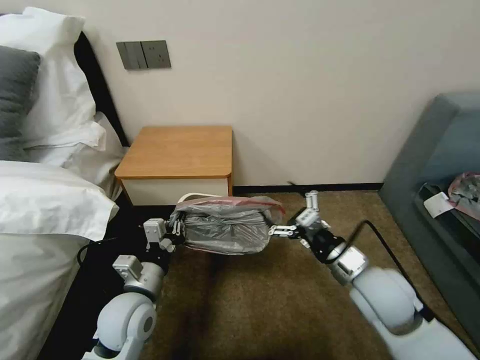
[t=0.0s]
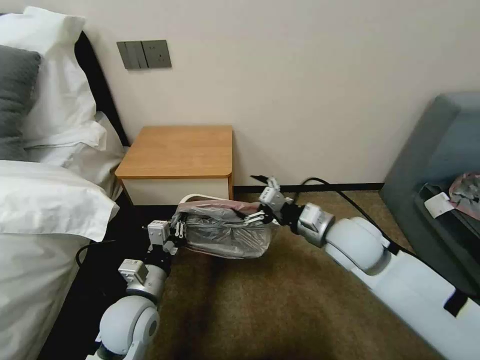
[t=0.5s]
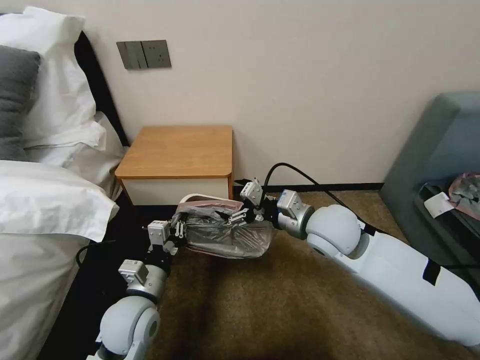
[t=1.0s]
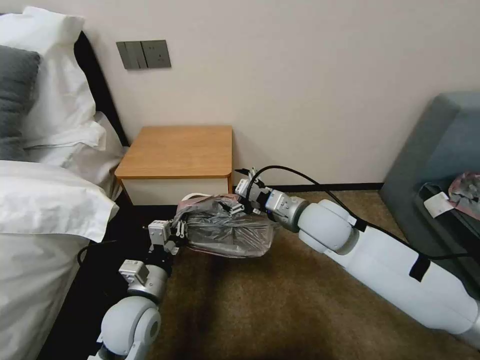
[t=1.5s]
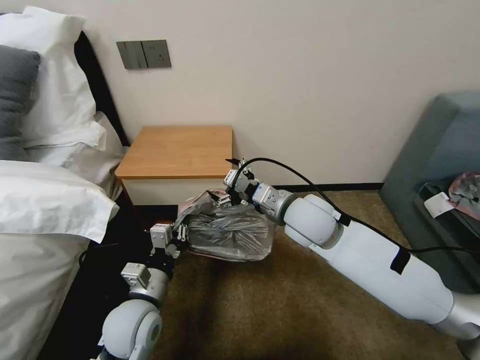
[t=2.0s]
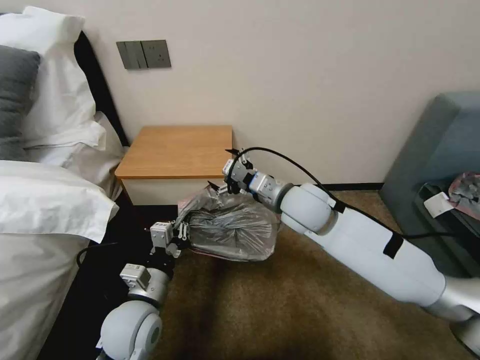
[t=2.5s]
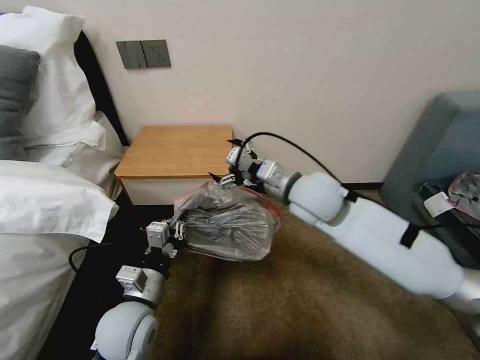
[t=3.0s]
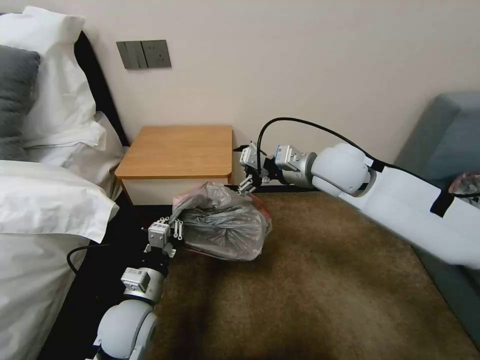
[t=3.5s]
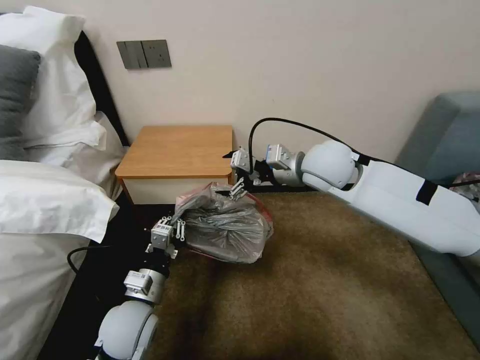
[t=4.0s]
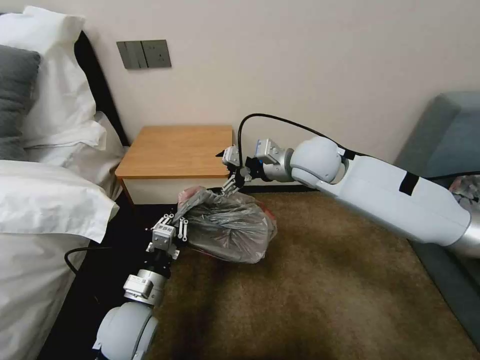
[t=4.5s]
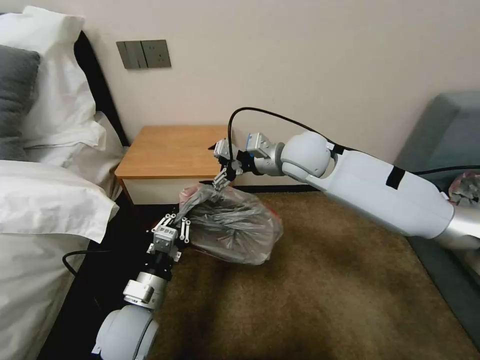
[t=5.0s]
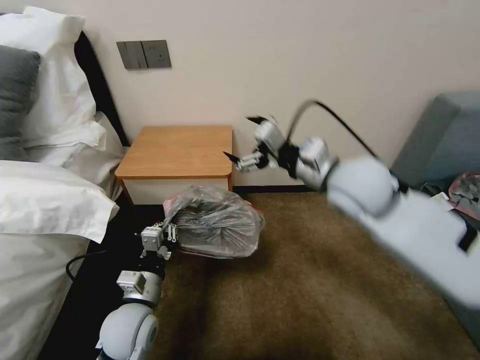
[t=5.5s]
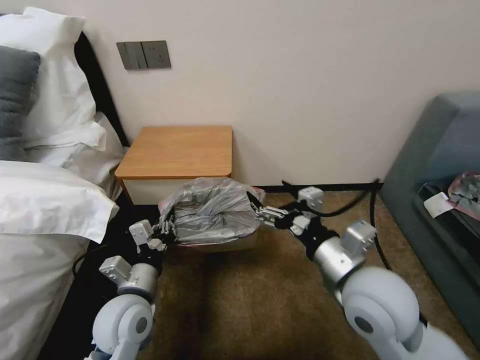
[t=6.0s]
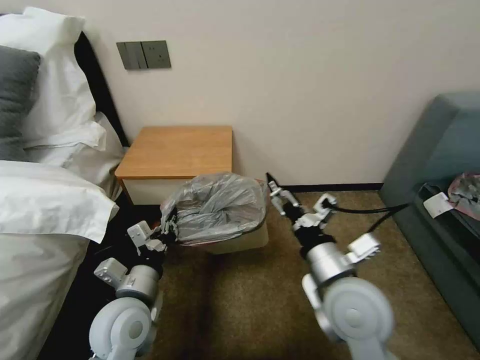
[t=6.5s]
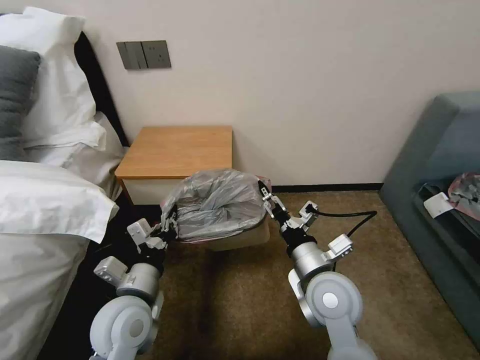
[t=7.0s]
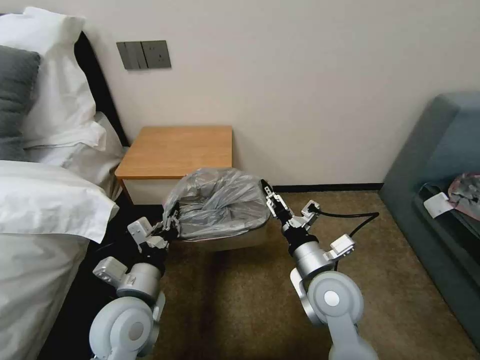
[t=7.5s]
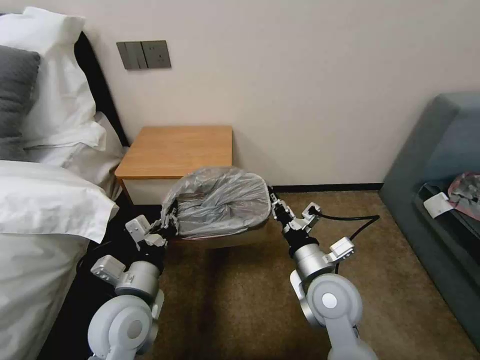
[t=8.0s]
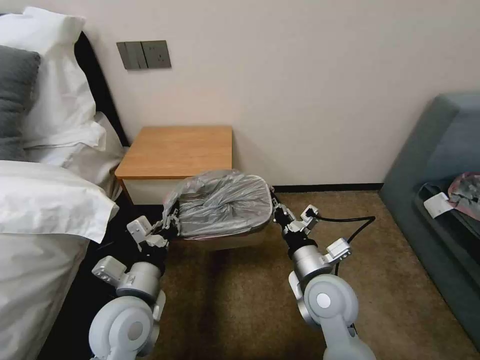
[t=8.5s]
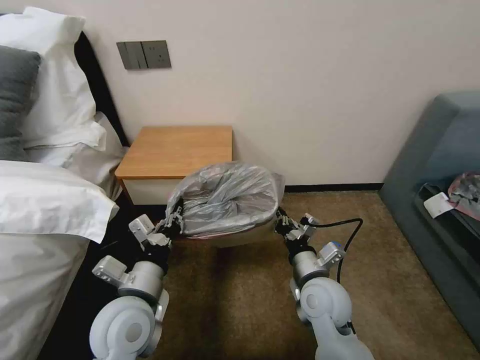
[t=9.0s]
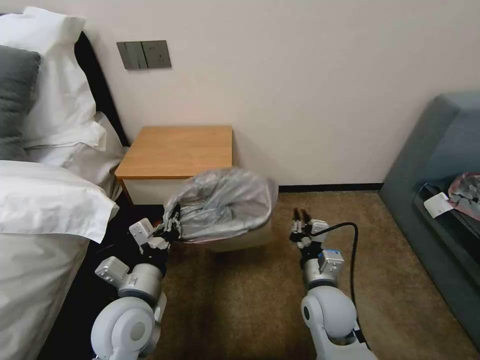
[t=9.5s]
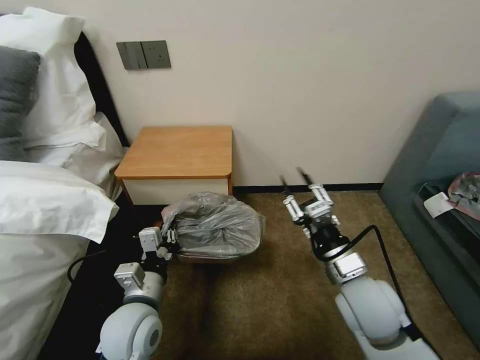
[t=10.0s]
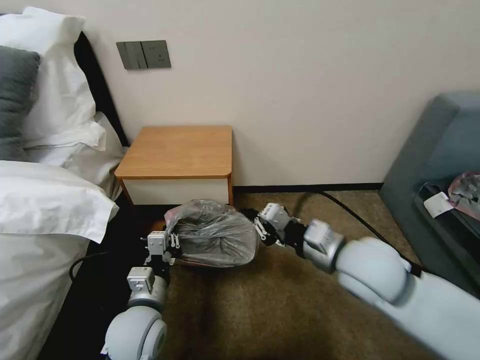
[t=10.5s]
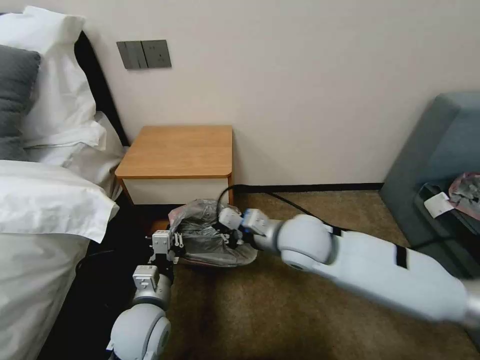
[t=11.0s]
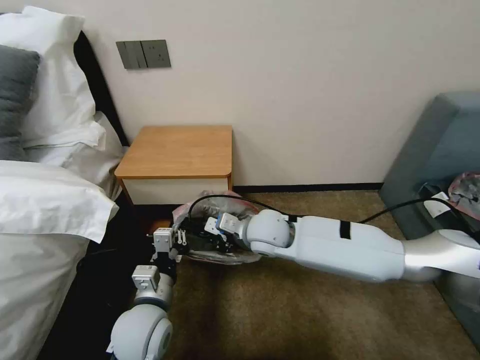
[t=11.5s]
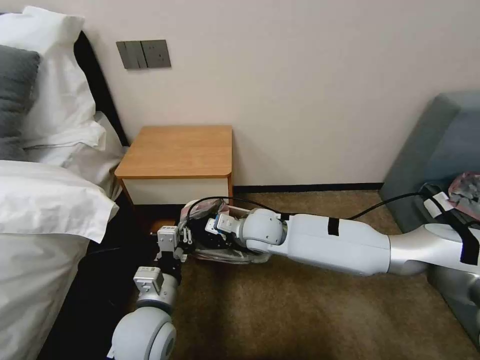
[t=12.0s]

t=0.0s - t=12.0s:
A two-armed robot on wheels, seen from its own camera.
Task of the whole recording: Pick up the garbage bag from the table and place it over the trash can.
t=0.0s - t=2.0s: The right gripper travels to the left, forward and upward by some 20 cm.
t=2.0s - t=4.0s: The right gripper moves upward and forward, roughly 10 cm.
t=4.0s - t=6.0s: The right gripper travels backward by about 20 cm.
t=6.0s - t=8.0s: The right gripper moves downward, approximately 10 cm, and closes.
t=8.0s - t=10.0s: The right gripper heads to the right, covering roughly 5 cm, and opens.
t=10.0s - t=12.0s: The right gripper shifts about 25 cm to the left and forward, and closes up.

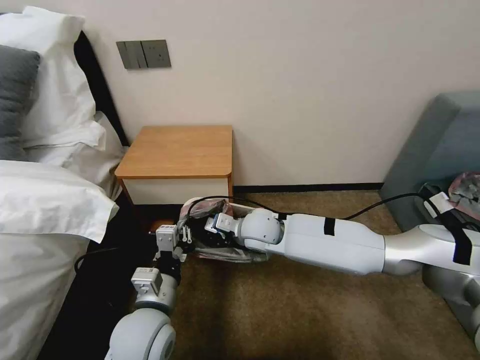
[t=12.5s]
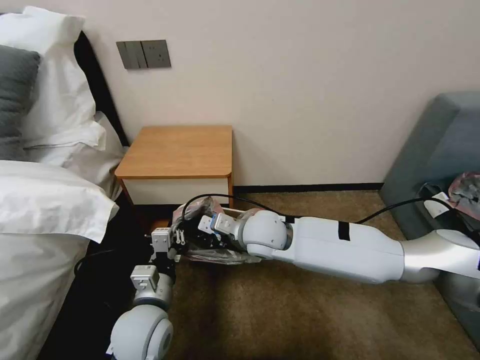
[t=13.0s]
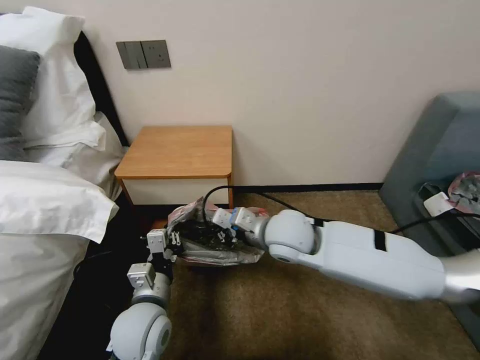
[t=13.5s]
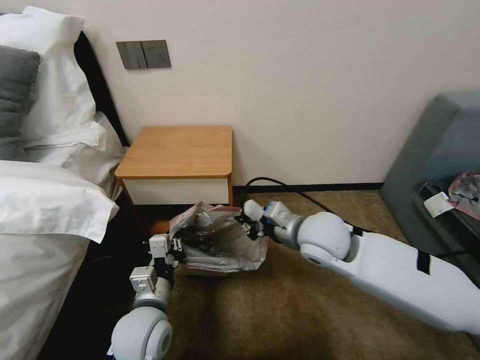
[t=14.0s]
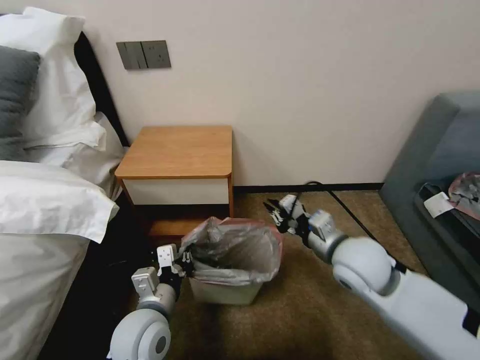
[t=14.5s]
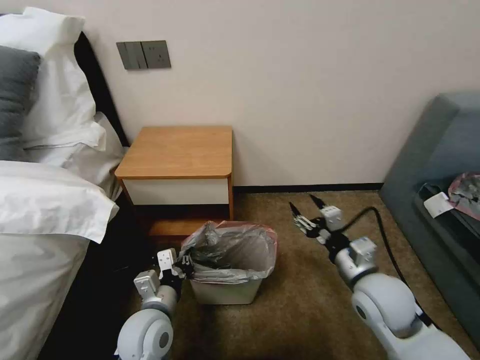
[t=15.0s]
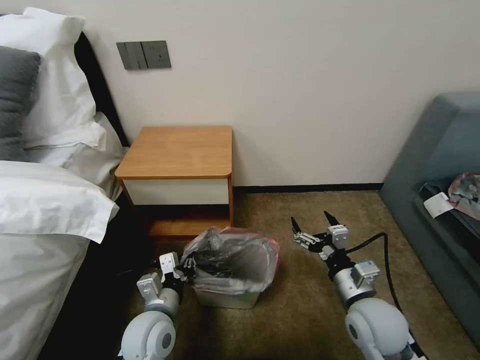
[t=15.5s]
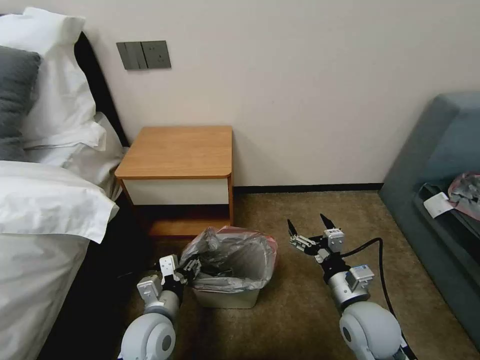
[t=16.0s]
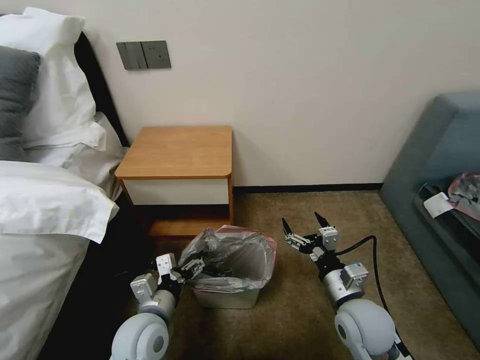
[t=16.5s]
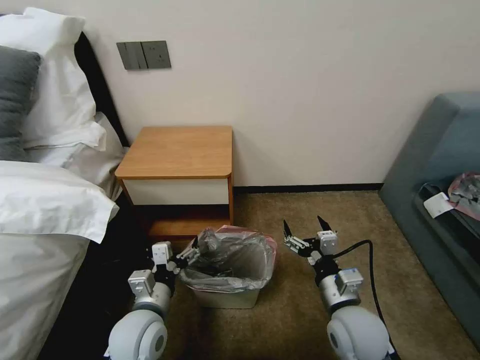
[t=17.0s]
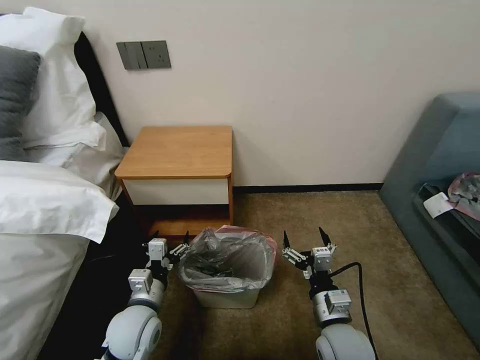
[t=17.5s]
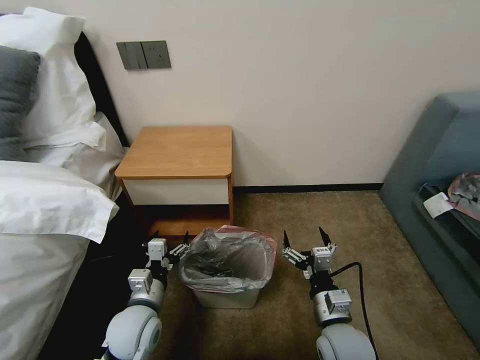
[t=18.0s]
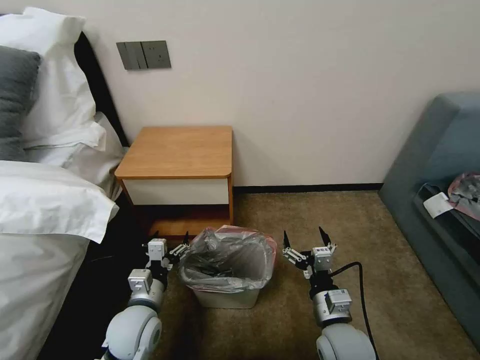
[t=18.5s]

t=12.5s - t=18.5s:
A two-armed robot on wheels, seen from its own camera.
Task of the whole recording: Pick up the garbage bag from the table and place it over the trash can.
t=12.5s - t=14.5s: The right gripper moves to the right and backward, about 20 cm.
t=14.5s - t=16.5s: The left gripper opens its fingers. The right gripper goes roughly 15 cm downward and backward, and opens.
t=16.5s - t=18.5s: The right gripper ends up about 5 cm from where it was.
